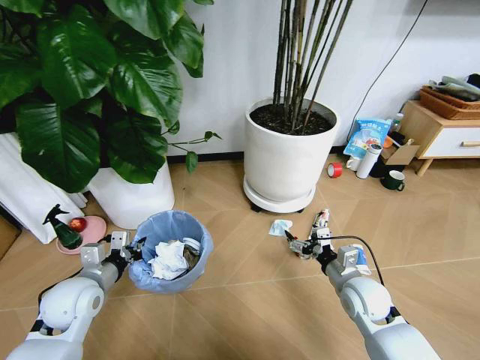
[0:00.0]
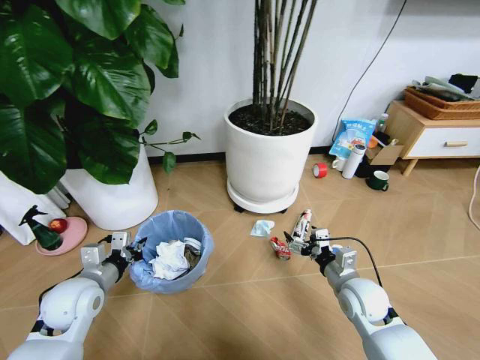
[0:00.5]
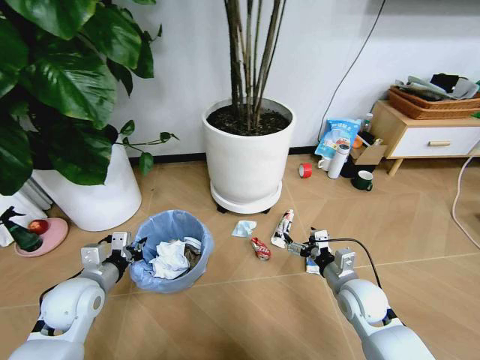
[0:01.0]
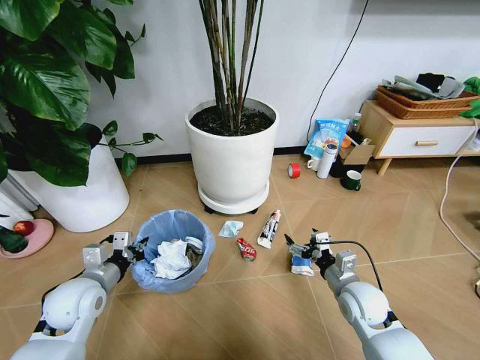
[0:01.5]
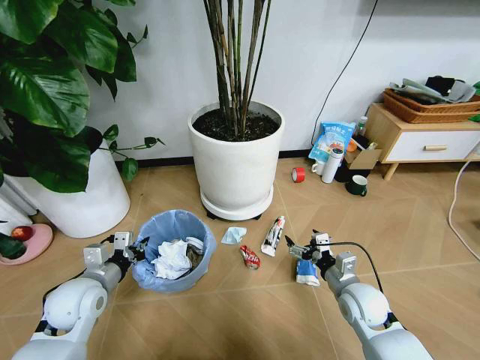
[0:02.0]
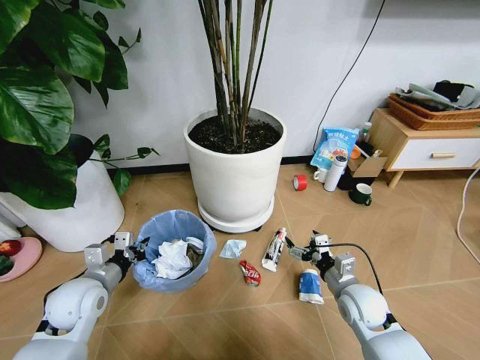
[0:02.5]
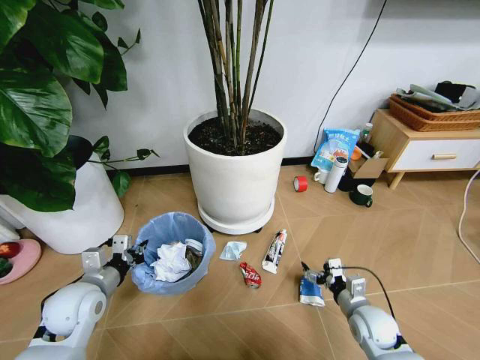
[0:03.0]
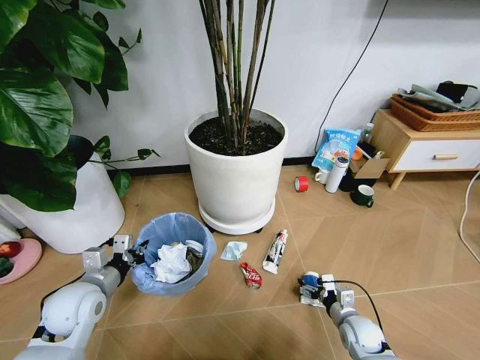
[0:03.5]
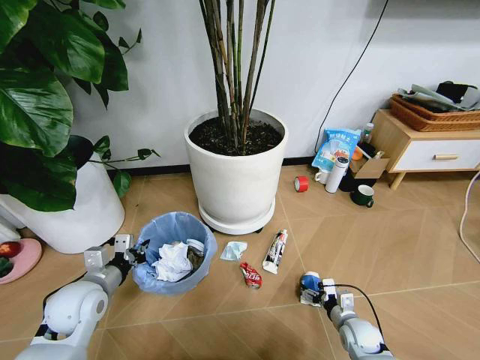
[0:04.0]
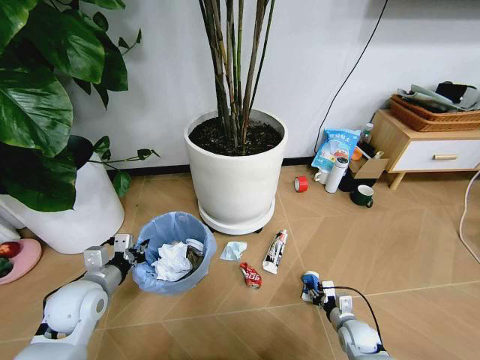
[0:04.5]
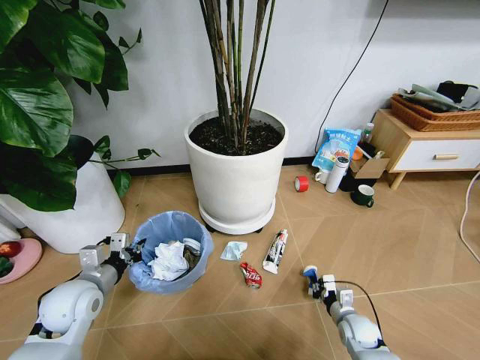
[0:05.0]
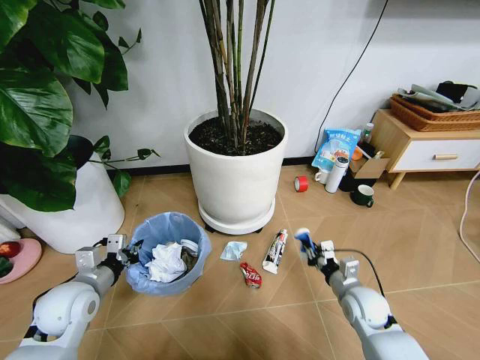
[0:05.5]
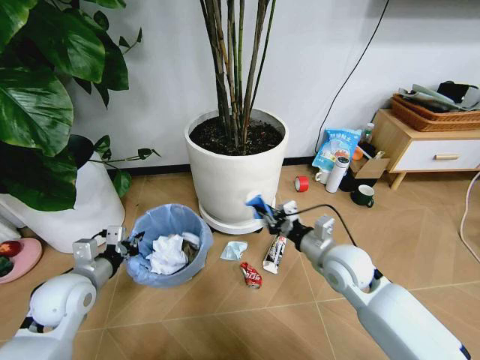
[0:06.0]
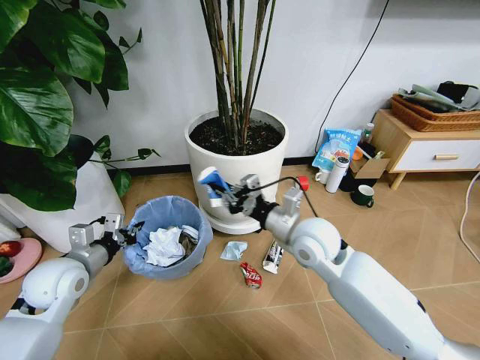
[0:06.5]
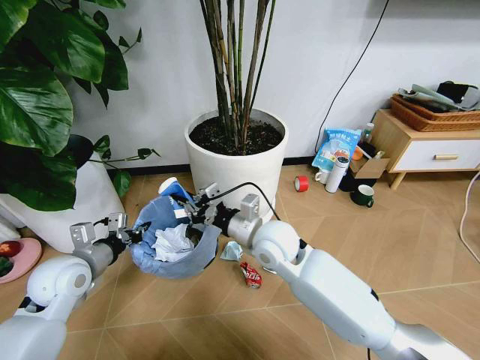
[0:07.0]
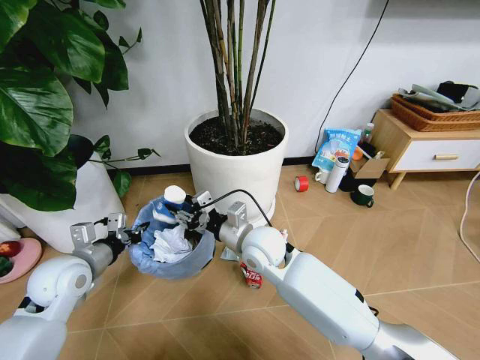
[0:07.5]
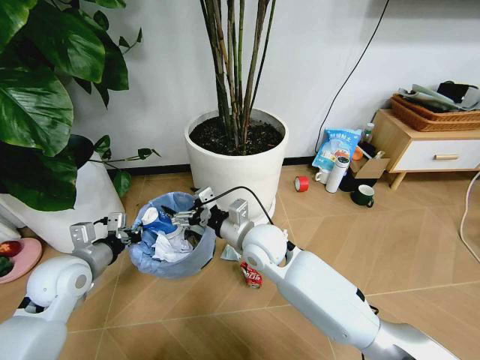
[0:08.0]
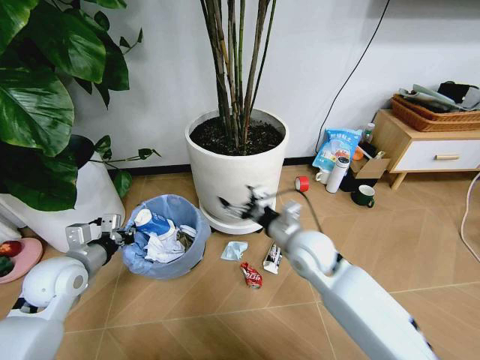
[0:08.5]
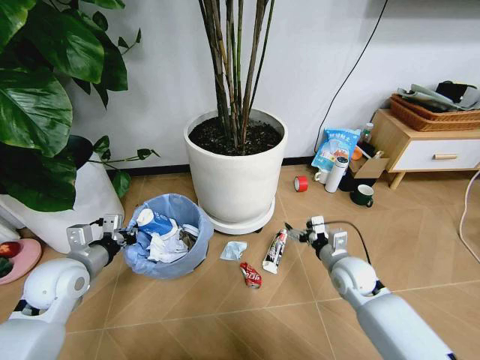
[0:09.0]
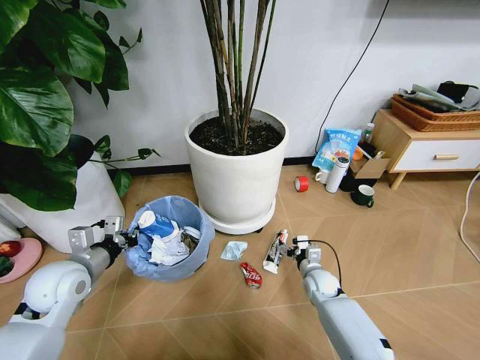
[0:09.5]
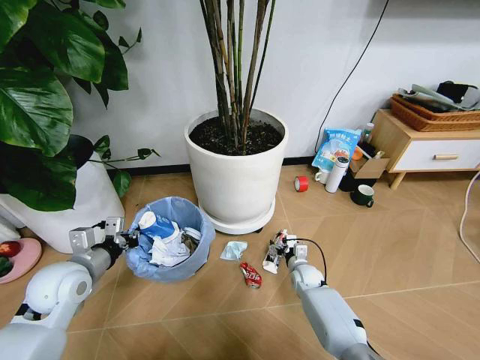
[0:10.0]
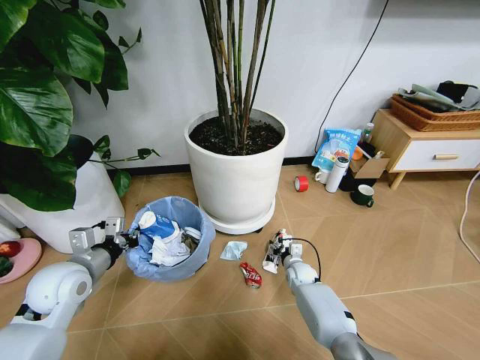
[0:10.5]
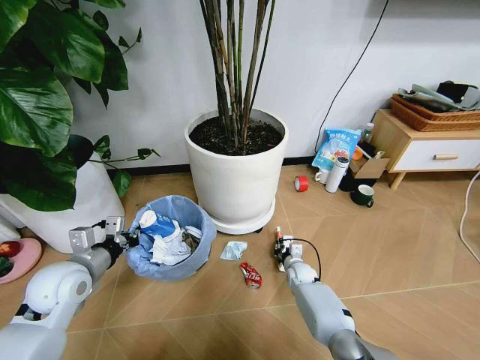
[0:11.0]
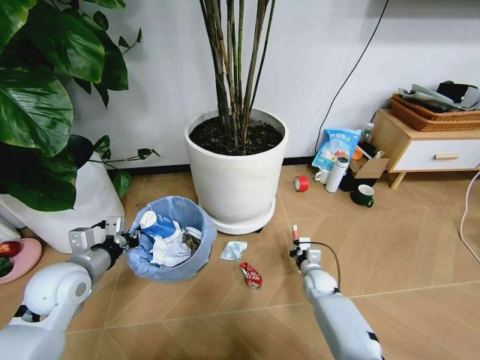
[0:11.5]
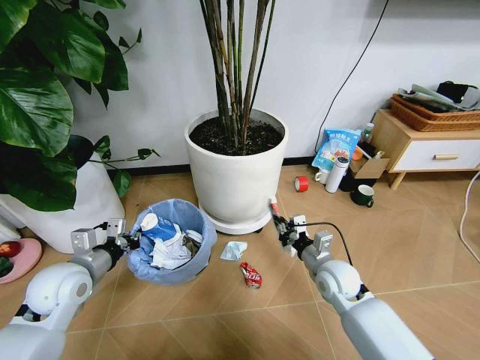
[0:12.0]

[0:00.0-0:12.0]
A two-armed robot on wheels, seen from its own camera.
Task of the whole recording: Pick up the trash bin and place the garbage on the floor into it.
0:02.0 to 0:04.0: The right gripper shifts some 15 cm downward.
0:04.0 to 0:06.0: The right gripper moves upward, some 25 cm, and closes its fingers.
0:06.0 to 0:08.0: The right gripper moves to the left, about 15 cm, and opens up.
0:08.0 to 0:10.0: The right gripper travels downward and to the right by approximately 35 cm.
0:10.0 to 0:12.0: The right gripper travels upward and backward by about 20 cm, and closes up.

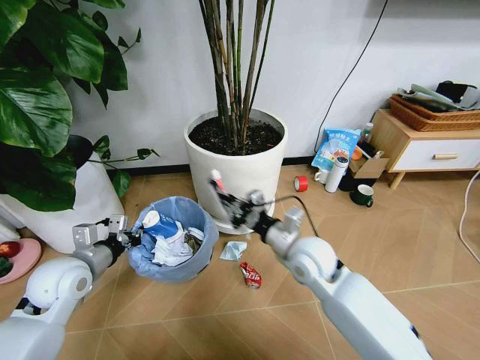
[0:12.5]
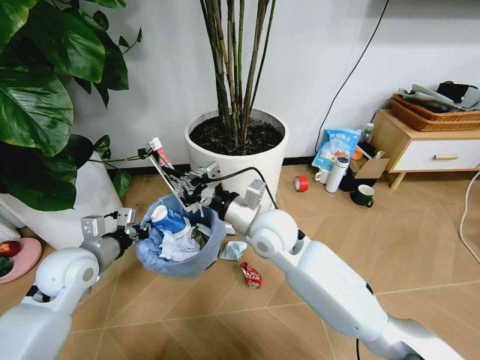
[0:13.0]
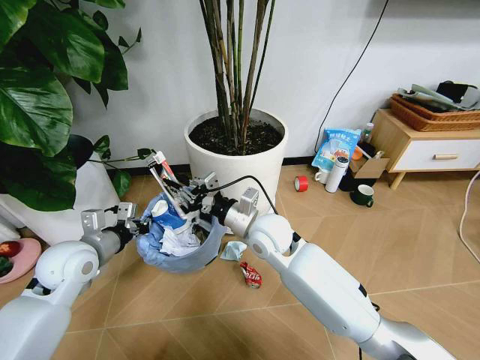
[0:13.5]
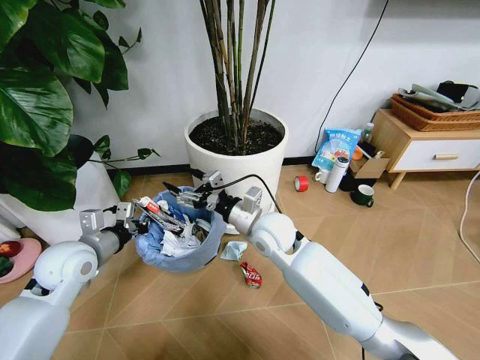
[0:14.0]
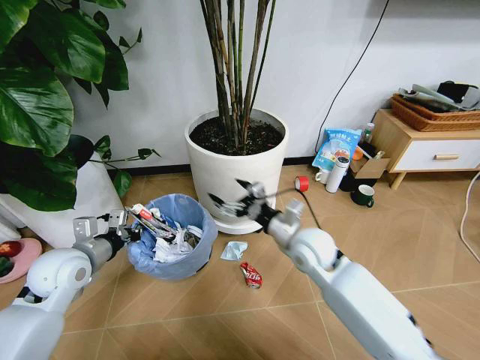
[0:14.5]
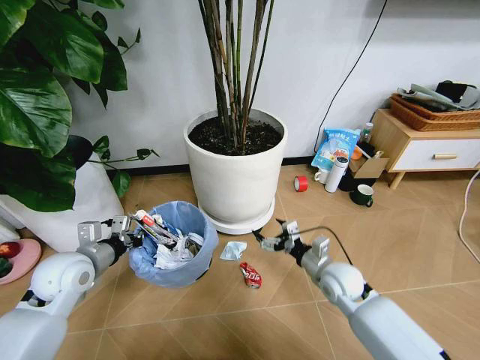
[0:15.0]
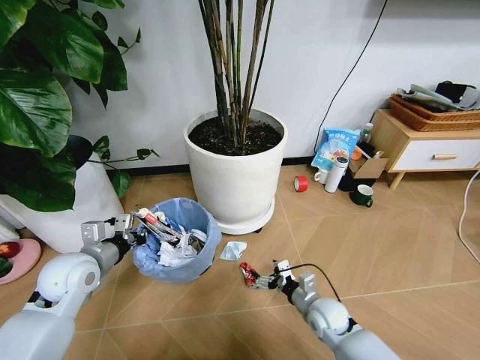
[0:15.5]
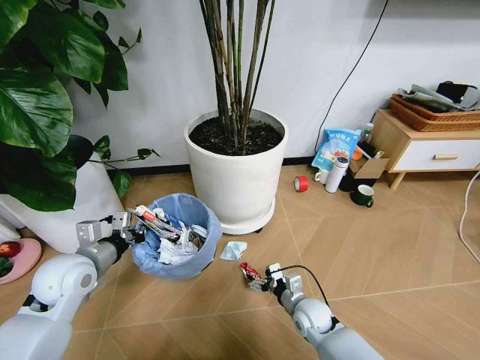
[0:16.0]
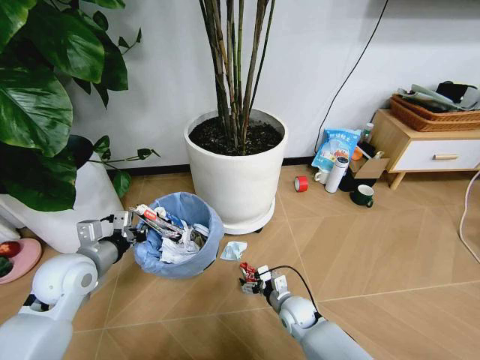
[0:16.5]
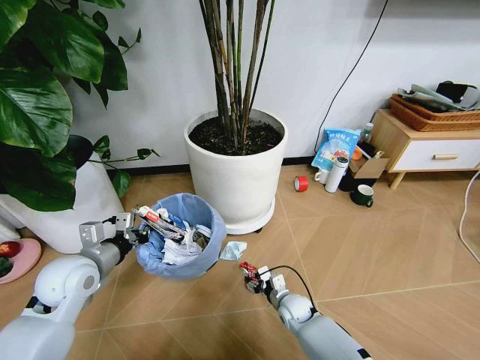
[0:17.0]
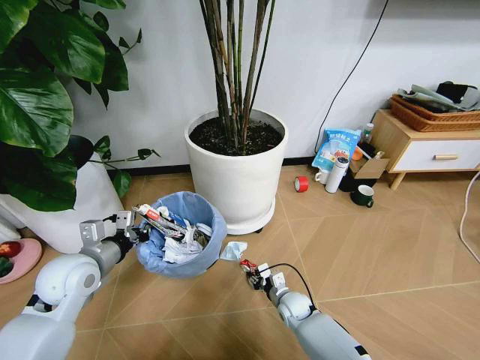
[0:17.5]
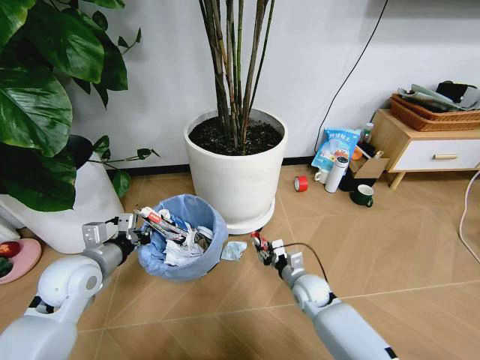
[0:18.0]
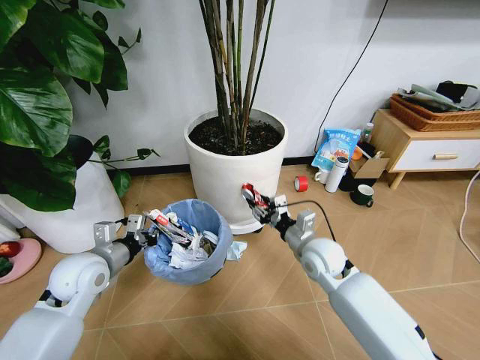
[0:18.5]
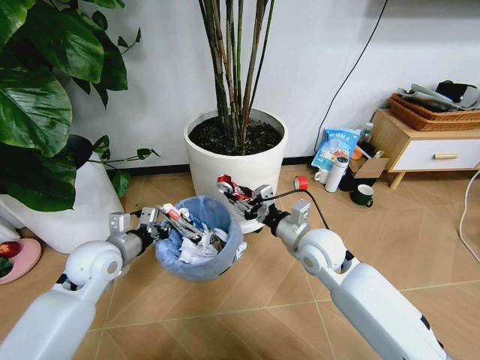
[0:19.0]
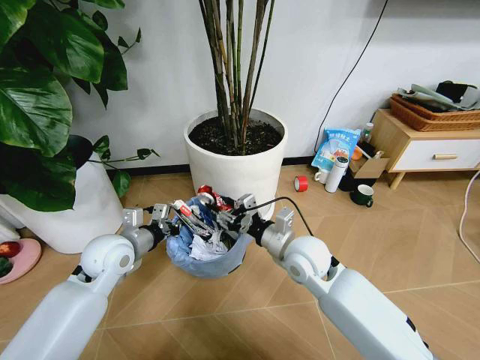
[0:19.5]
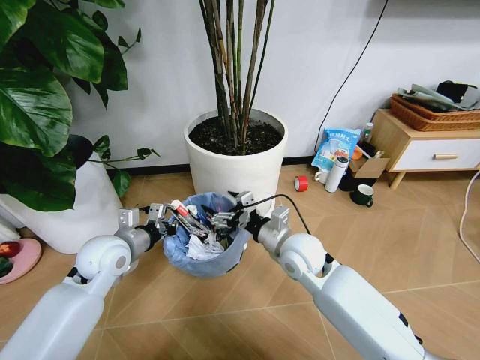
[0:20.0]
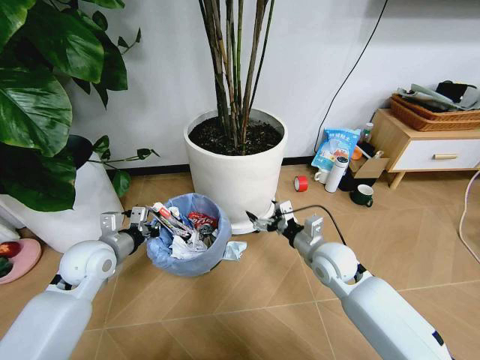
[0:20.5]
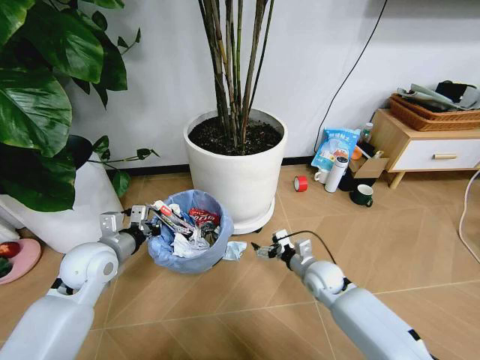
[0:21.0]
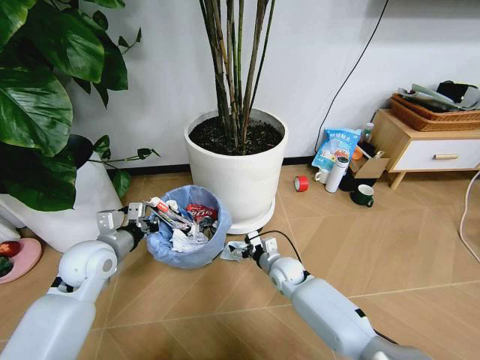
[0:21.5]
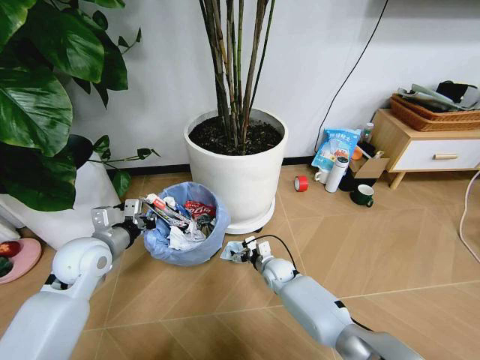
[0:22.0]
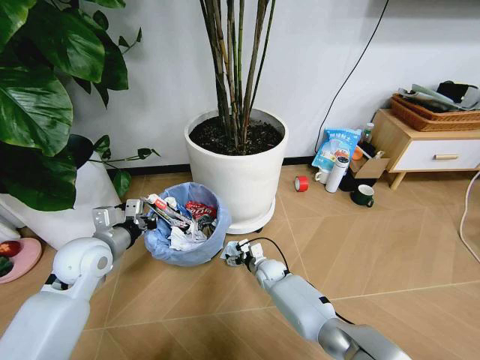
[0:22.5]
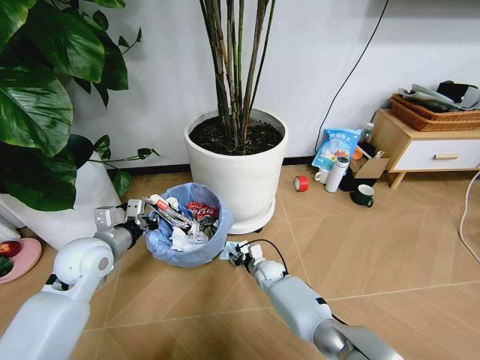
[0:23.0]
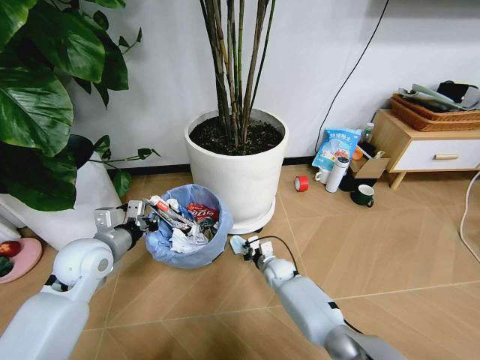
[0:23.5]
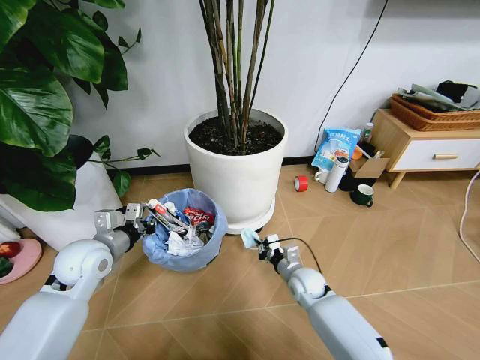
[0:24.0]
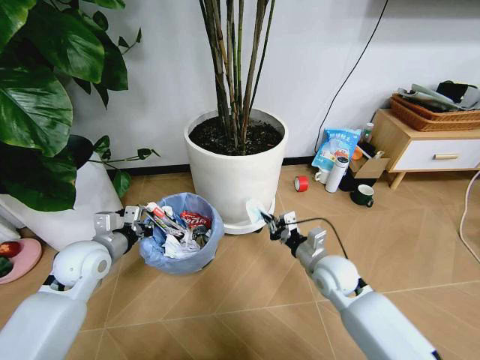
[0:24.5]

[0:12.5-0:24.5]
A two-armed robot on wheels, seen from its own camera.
Task of the whole recording: Pick up the trash bin and place the garbage on the floor into it.
0:12.5 to 0:14.5: The right gripper goes to the left and returns, some 10 cm each way, and opens.
0:14.5 to 0:16.5: The right gripper goes some 25 cm downward.
0:16.5 to 0:18.5: The right gripper shifts roughly 20 cm upward, and closes up.
0:18.5 to 0:20.5: The right gripper travels to the left and back again, approximately 5 cm each way, and opens up.
0:20.5 to 0:22.5: The right gripper goes roughly 25 cm downward and to the left.
0:22.5 to 0:24.5: The right gripper moves upward, to the right and backward, some 25 cm, and closes.

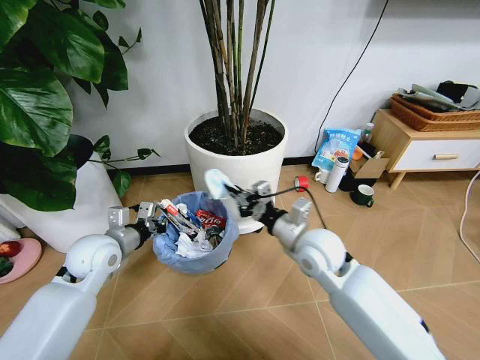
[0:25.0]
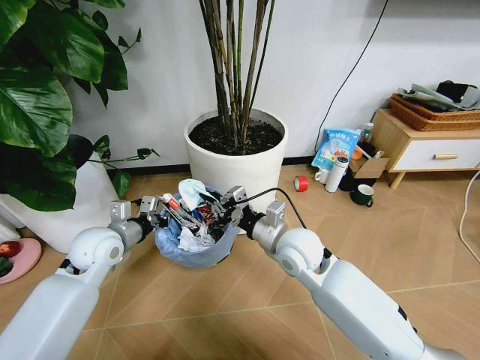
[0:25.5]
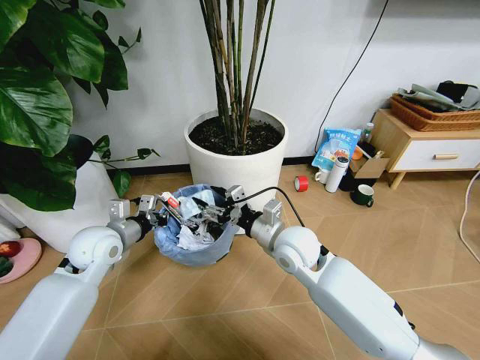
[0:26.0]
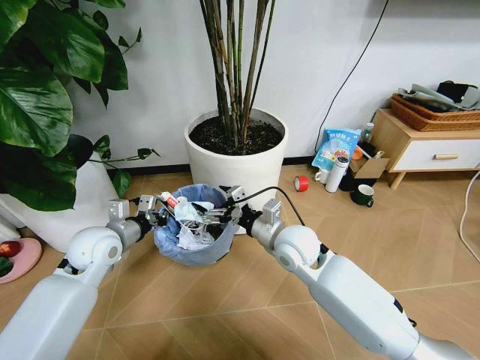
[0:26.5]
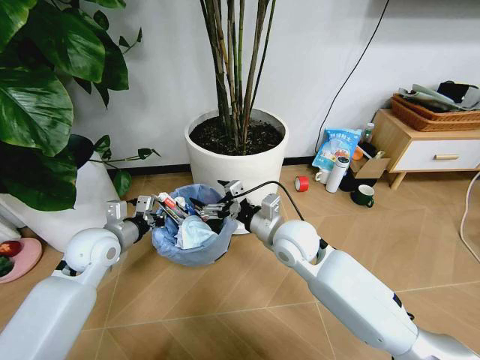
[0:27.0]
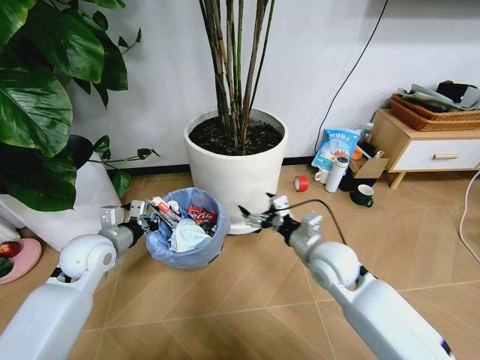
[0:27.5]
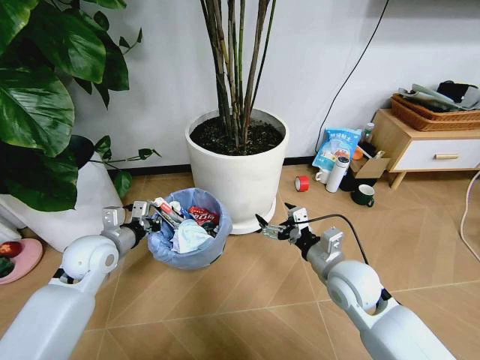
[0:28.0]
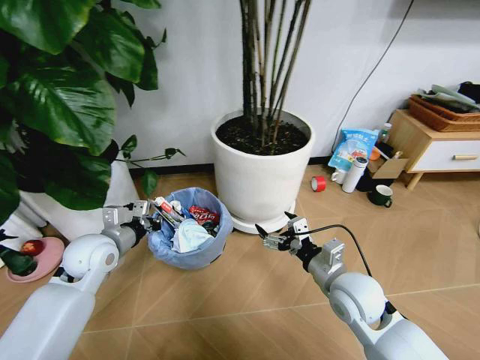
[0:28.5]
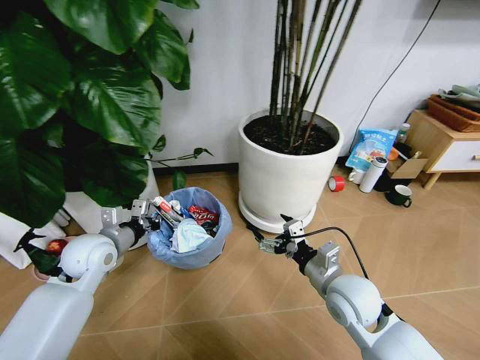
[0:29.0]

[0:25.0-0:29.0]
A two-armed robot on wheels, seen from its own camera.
Task of the whole recording: Pick up the trash bin and place the garbage on the floor into it.
0:25.0 to 0:27.0: The right gripper ends up some 5 cm from where it was, and opens its fingers.
0:27.0 to 0:29.0: The right gripper travels backward and to the right by some 15 cm.
